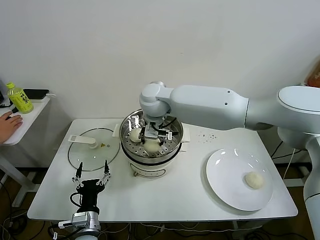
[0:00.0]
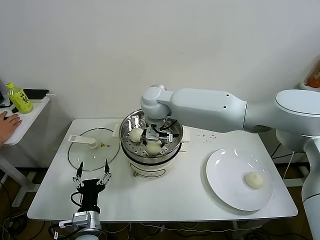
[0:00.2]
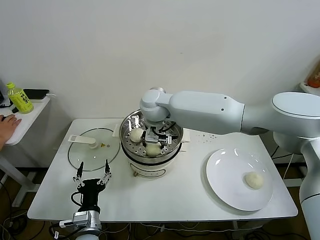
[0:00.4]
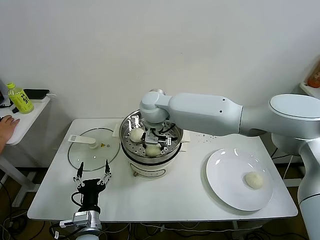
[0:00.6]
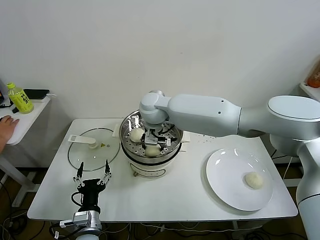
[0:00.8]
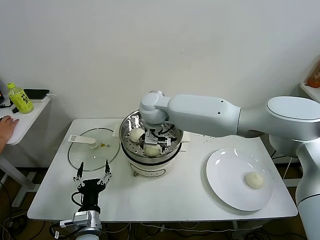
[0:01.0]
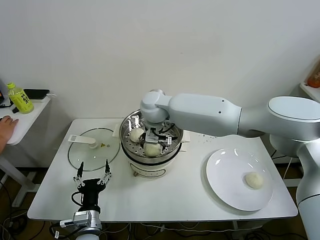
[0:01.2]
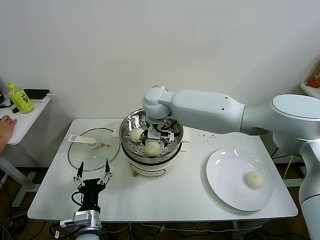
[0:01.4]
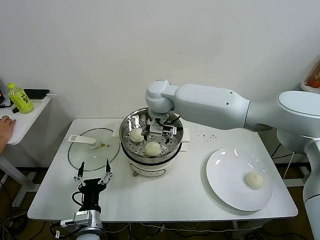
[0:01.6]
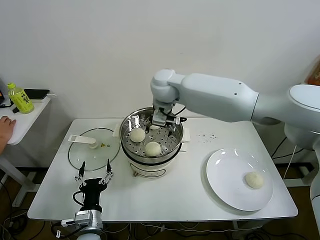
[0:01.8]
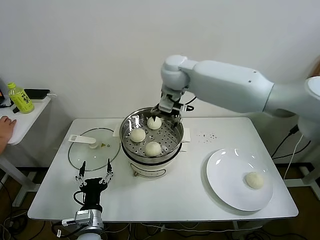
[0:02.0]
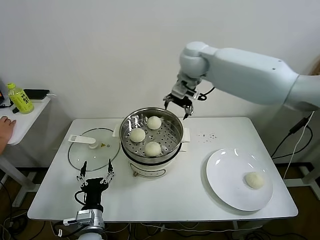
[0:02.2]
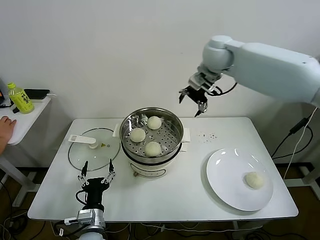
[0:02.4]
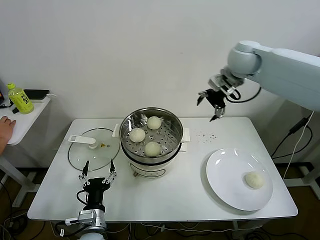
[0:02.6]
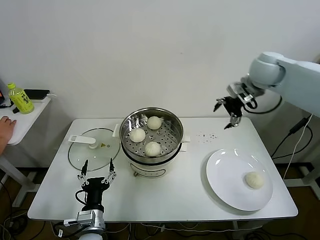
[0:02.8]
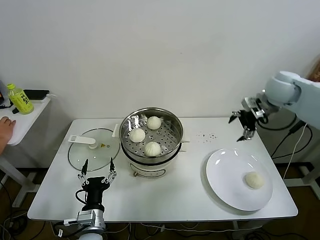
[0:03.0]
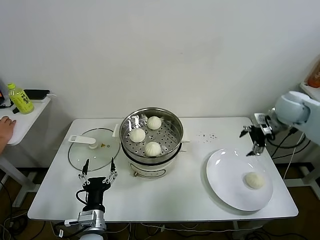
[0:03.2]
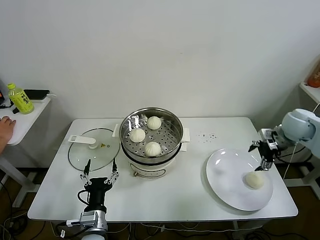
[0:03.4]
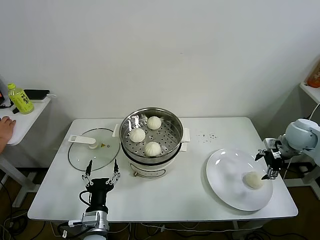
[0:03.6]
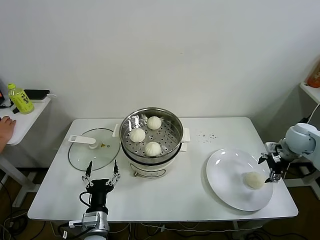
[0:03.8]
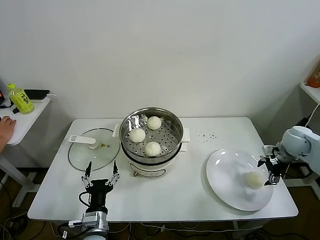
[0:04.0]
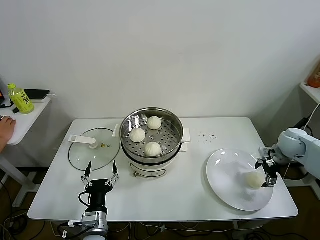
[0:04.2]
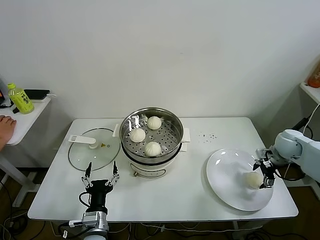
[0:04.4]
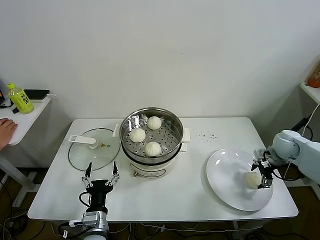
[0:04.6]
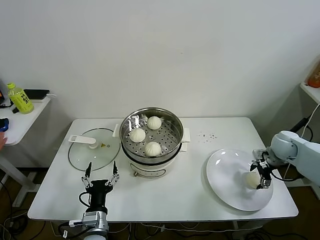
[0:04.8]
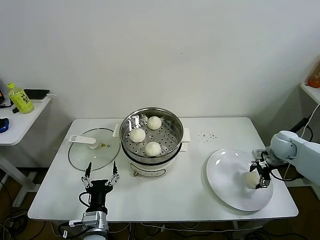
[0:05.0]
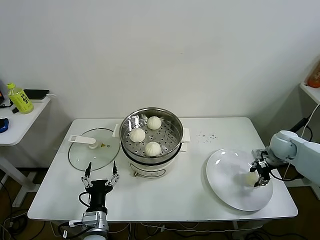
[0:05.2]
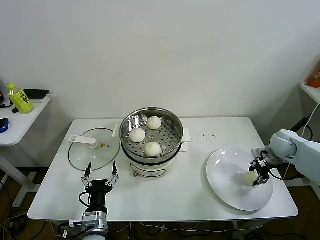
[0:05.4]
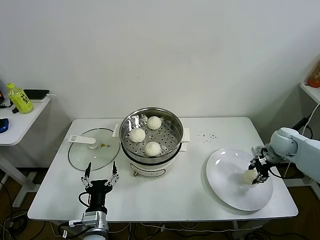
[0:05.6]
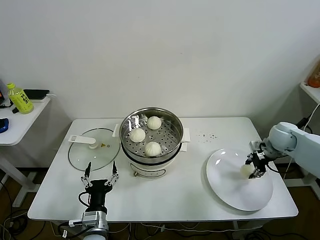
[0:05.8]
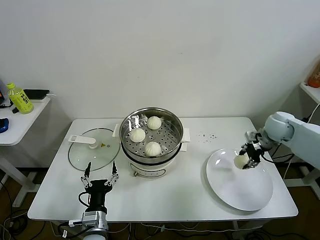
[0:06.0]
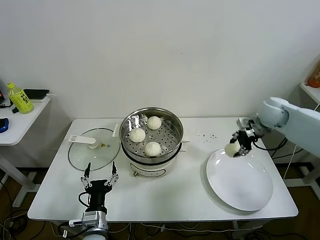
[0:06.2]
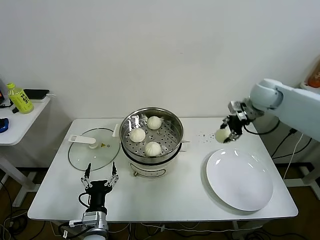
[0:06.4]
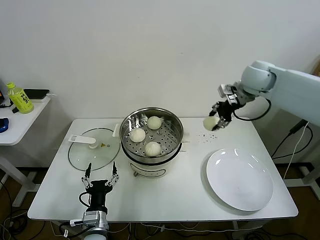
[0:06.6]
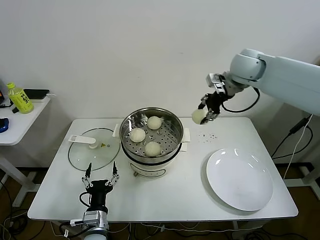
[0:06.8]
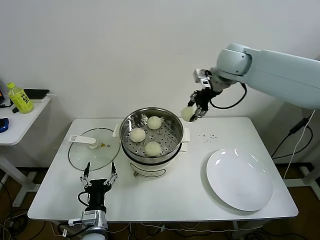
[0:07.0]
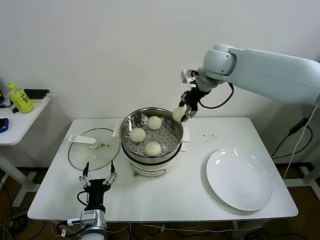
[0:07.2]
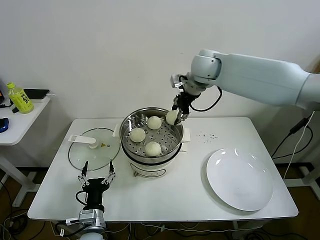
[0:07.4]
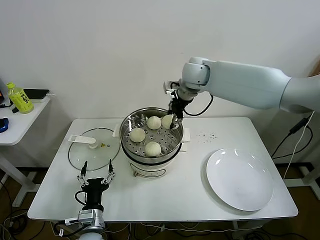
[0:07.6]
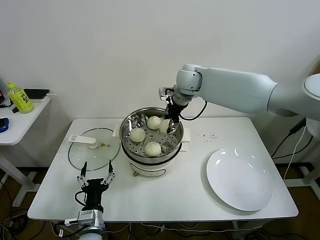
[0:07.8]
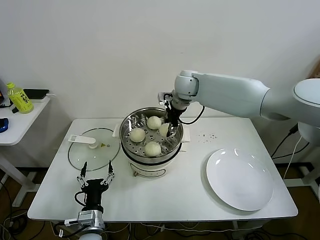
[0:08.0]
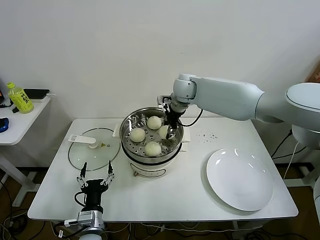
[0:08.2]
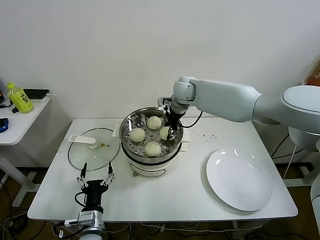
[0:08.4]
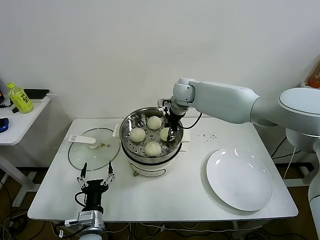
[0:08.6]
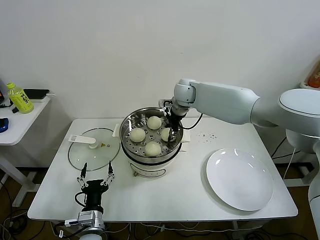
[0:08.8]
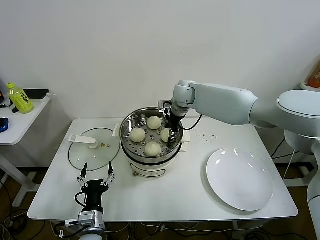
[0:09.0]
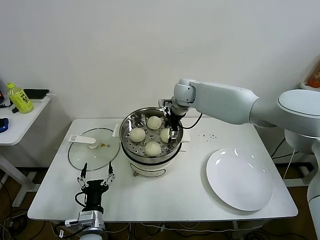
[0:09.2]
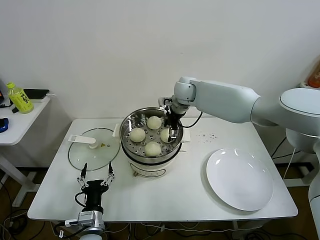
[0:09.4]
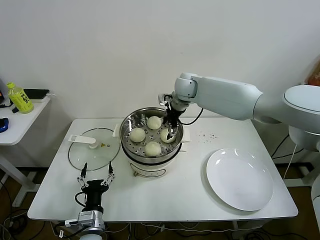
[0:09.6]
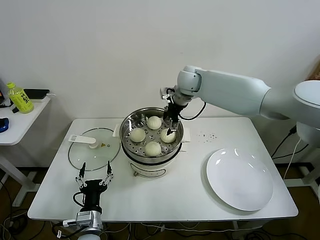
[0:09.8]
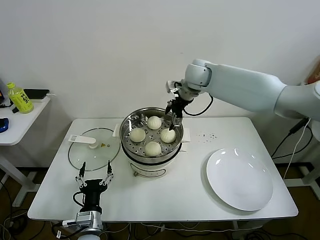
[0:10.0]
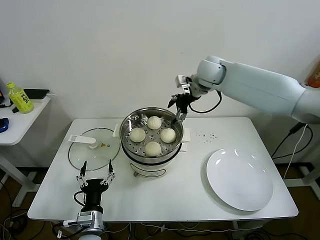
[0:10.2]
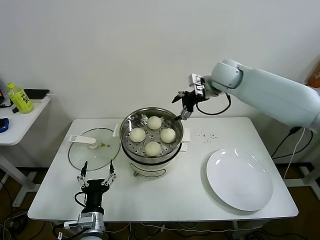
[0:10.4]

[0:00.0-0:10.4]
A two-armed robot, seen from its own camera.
Task of the whole recording: take steamed baozi put them in steamer.
Step, 0:01.4 to 0:05.4: Grasp the baozi in the plate with right gripper.
Step, 0:05.6 to 0:09.2: Place the baozi on the steamer with right gripper.
0:00.0 to 0:01.4: The right gripper opens its fingers.
0:01.4 to 0:03.0: The right gripper shifts some 35 cm to the right.
0:03.0 to 0:04.4: The right gripper shifts roughly 25 cm downward and to the right.
0:04.4 to 0:06.0: The right gripper ends up some 5 cm from where it was, and closes up.
0:06.0 to 0:07.4: The right gripper is displaced to the left and upward by some 35 cm.
0:07.4 to 0:09.0: The right gripper moves downward and to the left, roughly 15 cm.
0:09.0 to 0:10.4: The right gripper travels to the right and upward by approximately 15 cm, and opens its fingers.

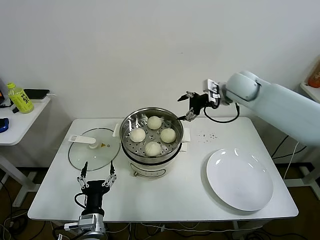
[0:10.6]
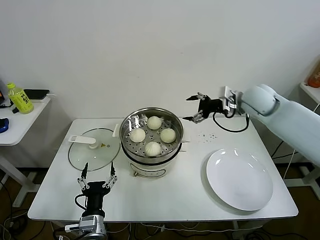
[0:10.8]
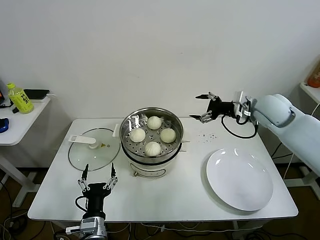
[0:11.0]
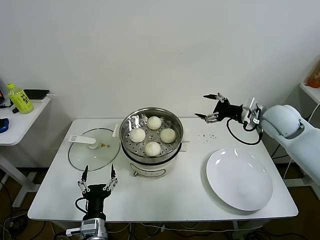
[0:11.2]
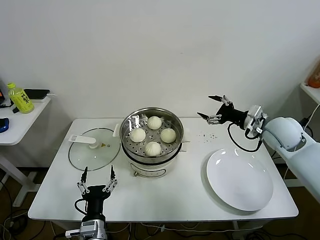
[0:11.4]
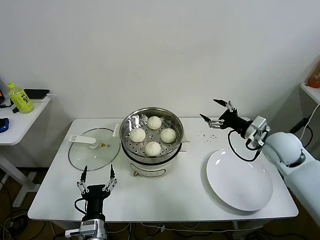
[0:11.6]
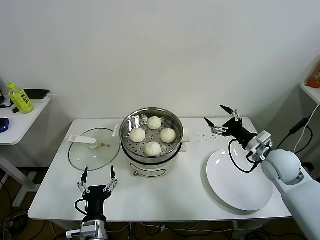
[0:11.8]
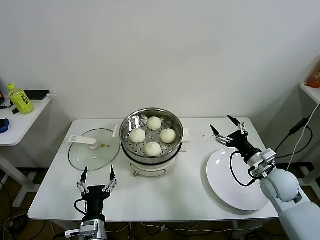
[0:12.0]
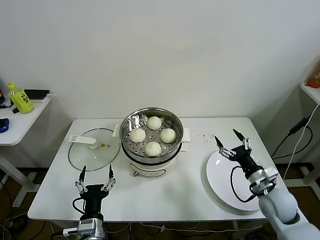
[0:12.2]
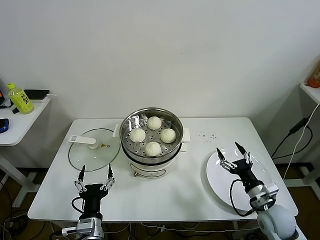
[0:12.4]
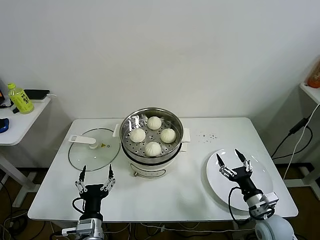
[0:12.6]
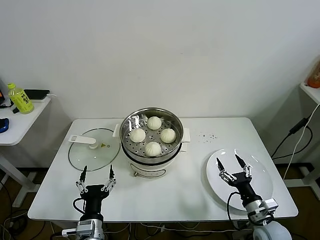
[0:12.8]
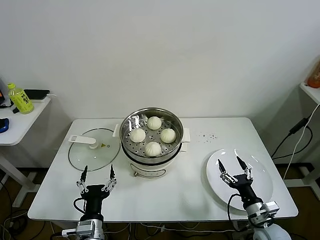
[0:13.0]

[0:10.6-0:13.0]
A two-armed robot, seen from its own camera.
Task of the whole recording: take steamed baozi put them in steamer.
0:10.6 to 0:11.8: The right gripper moves backward, downward and to the right, about 25 cm.
0:11.8 to 0:13.0: The right gripper heads downward and backward, covering some 25 cm.

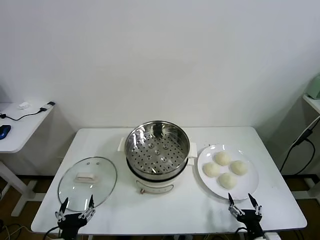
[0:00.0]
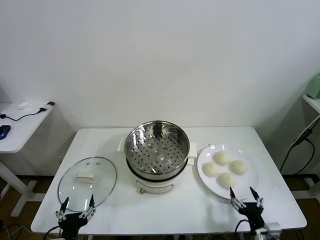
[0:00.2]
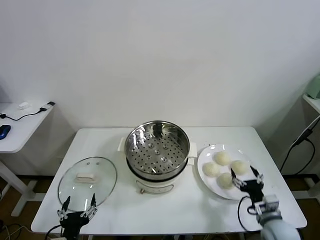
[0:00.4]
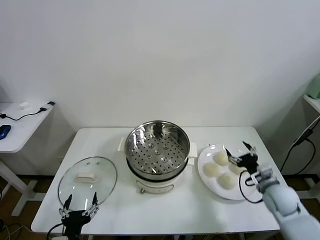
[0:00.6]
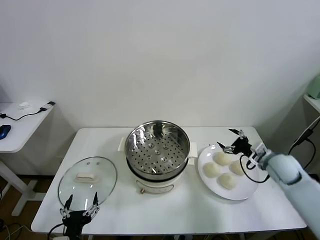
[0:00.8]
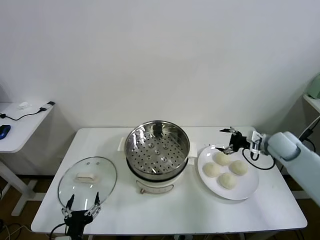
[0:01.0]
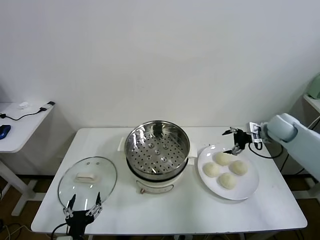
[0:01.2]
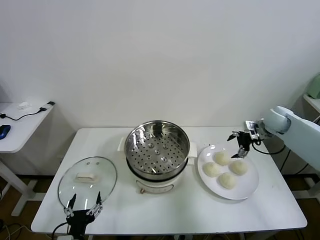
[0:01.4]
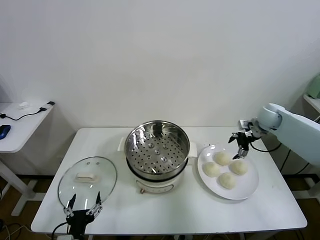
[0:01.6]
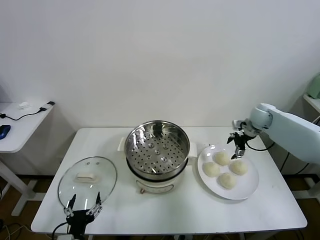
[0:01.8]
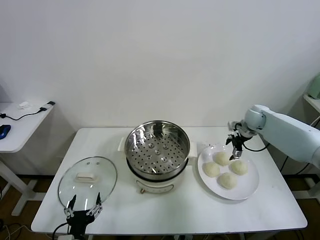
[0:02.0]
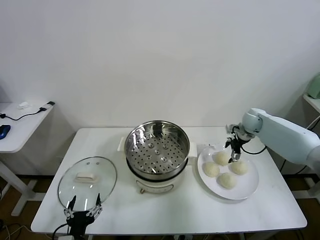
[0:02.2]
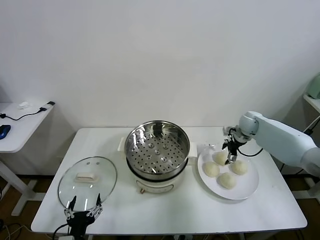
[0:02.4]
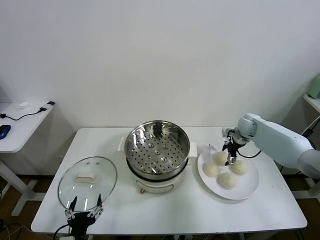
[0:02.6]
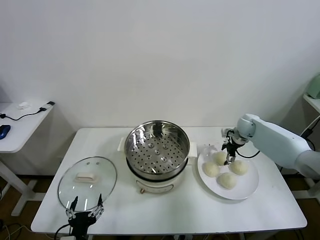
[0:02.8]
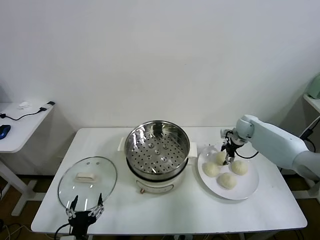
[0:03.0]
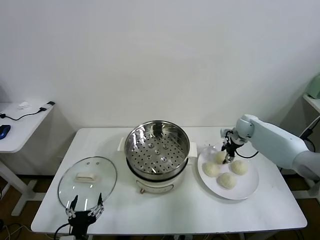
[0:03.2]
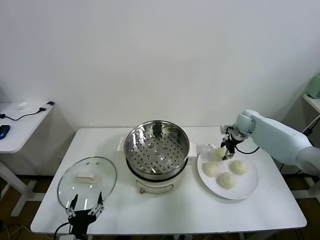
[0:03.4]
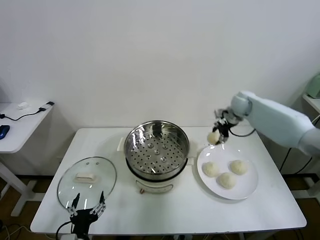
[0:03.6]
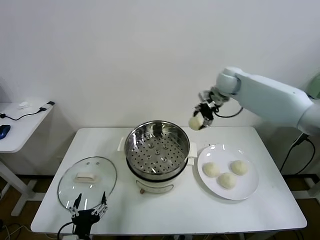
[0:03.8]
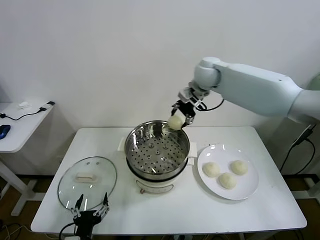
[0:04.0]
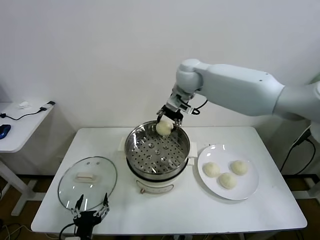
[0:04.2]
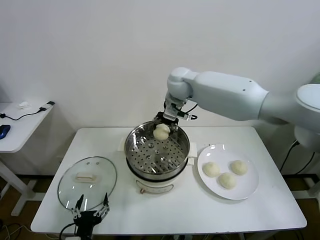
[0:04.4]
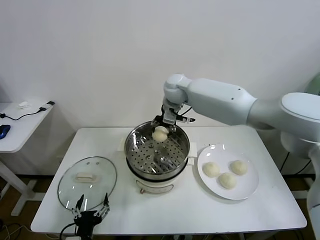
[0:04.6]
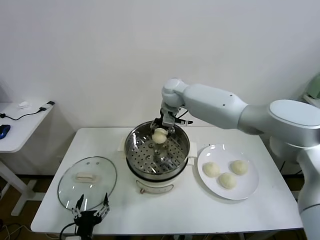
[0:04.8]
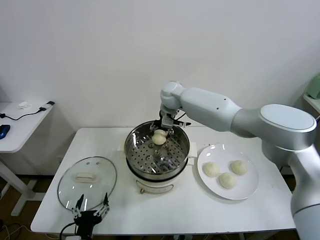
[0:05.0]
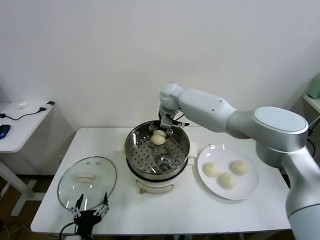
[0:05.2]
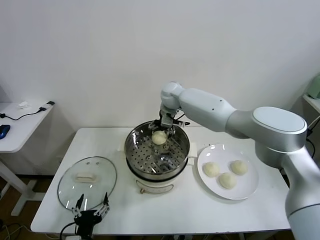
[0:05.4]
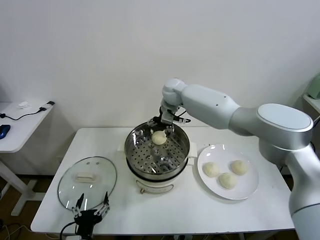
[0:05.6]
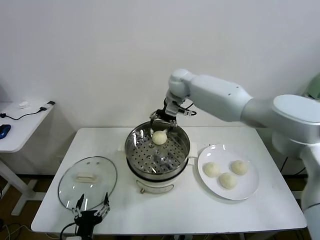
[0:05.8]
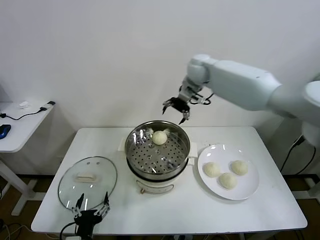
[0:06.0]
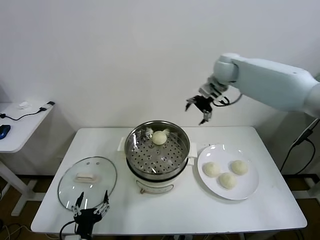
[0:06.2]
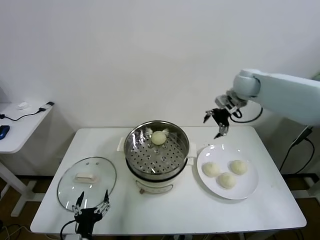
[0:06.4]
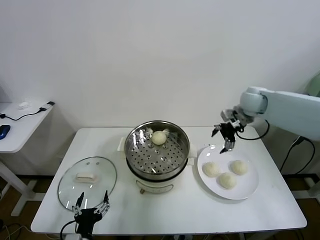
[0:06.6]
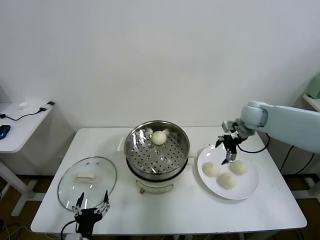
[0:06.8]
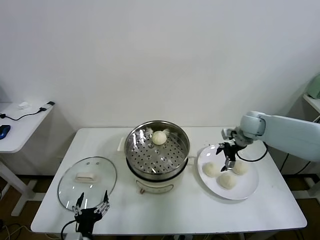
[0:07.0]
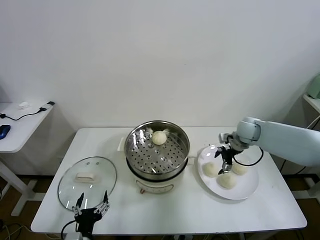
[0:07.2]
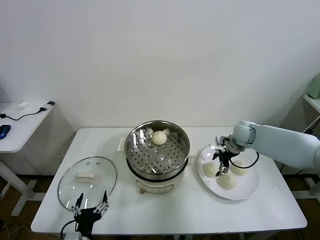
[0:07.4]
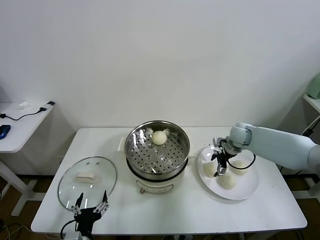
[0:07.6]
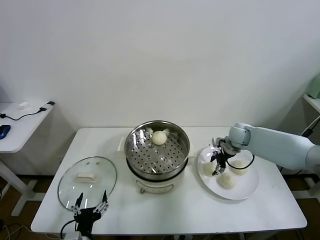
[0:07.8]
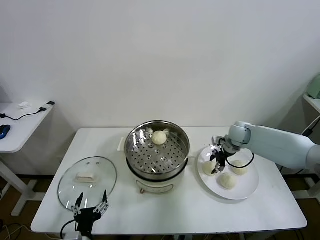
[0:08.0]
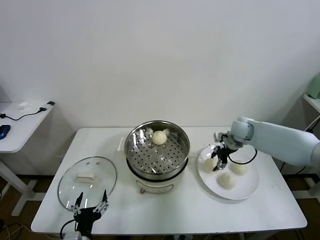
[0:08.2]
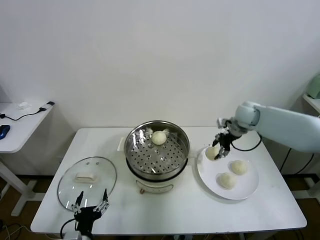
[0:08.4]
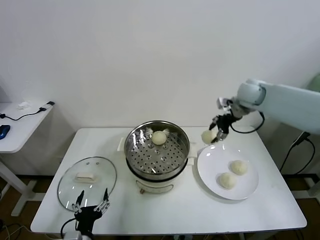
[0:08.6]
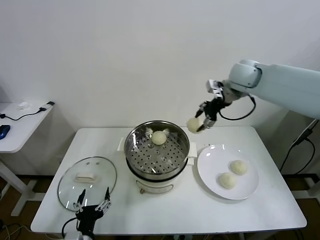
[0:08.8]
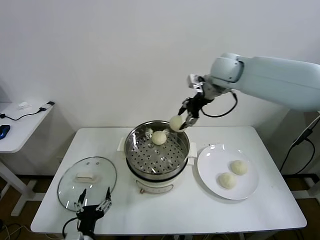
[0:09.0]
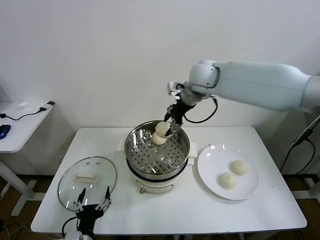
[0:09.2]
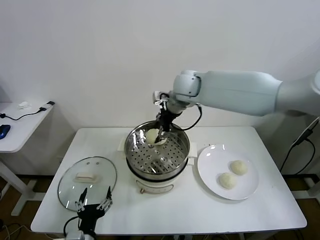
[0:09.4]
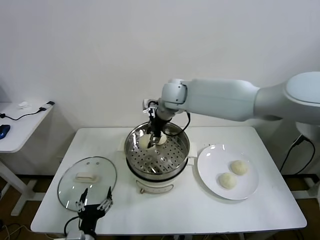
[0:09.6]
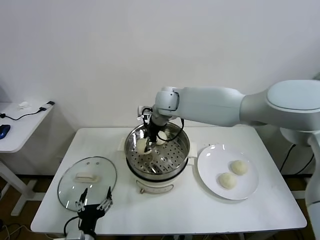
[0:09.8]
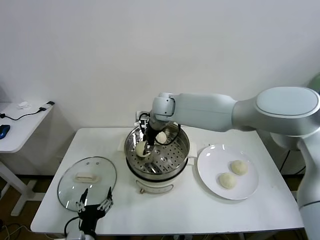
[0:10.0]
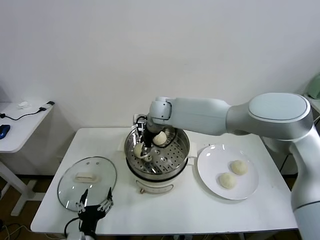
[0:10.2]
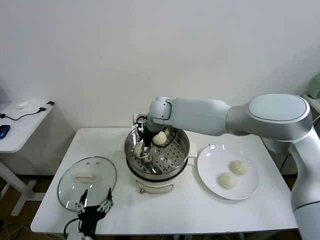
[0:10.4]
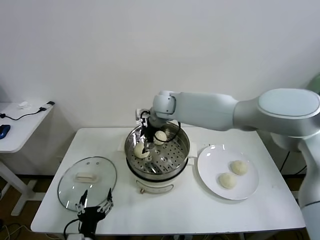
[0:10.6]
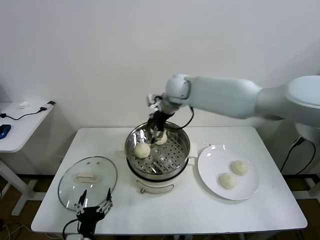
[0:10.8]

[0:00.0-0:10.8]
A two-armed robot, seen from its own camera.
Task of the whole recording: take steamed baozi put them in steamer.
Step, 0:00.0 to 0:03.0: Grasp the baozi in the plate with right gripper.
Step, 0:03.2 to 0:05.2: Place the baozi on the steamer with right gripper.
Step, 0:05.6 to 0:07.8: Grasp the baozi in the plate with right gripper.
Step, 0:08.2 to 0:10.4: Place the baozi on the steamer with right gripper.
0:01.6 to 0:03.0: The right gripper moves downward, approximately 10 cm, and closes its fingers.
0:03.0 to 0:04.6: The right gripper goes about 35 cm to the left and upward.
0:04.6 to 0:06.2: The right gripper goes roughly 20 cm to the right, and opens.
0:06.2 to 0:07.8: The right gripper moves downward, approximately 25 cm, and closes.
0:07.8 to 0:09.2: The right gripper is displaced upward and to the left by about 30 cm.
0:09.2 to 0:10.8: The right gripper goes downward and returns, some 10 cm each way, and opens its fingers.
